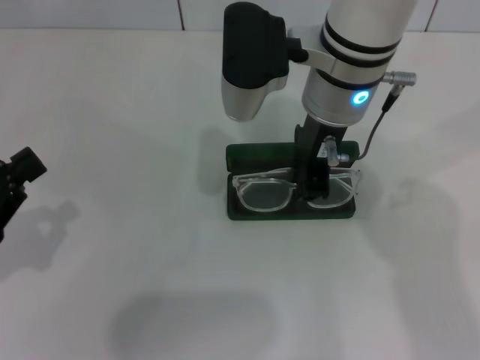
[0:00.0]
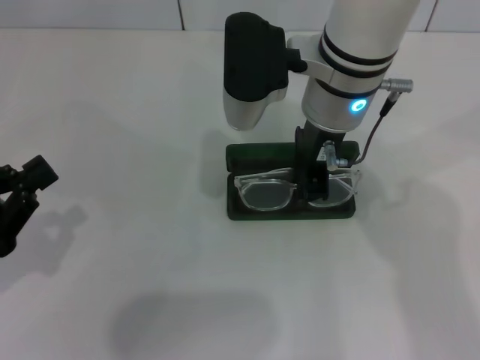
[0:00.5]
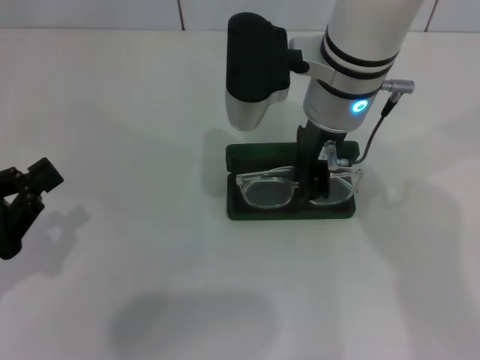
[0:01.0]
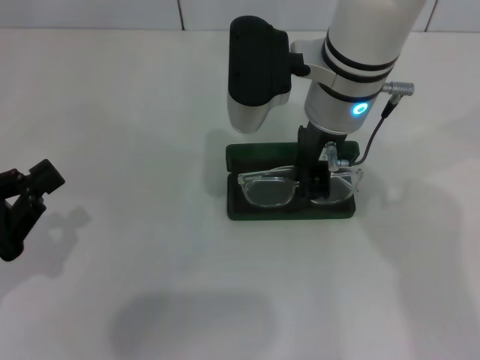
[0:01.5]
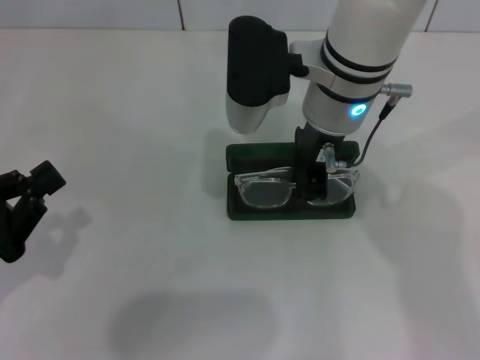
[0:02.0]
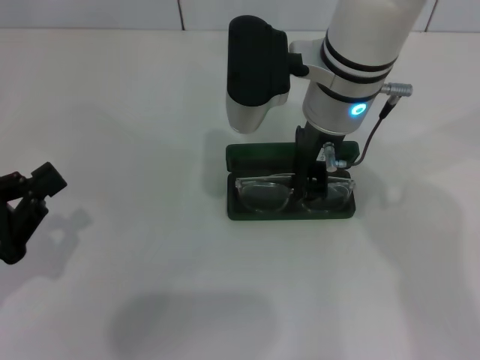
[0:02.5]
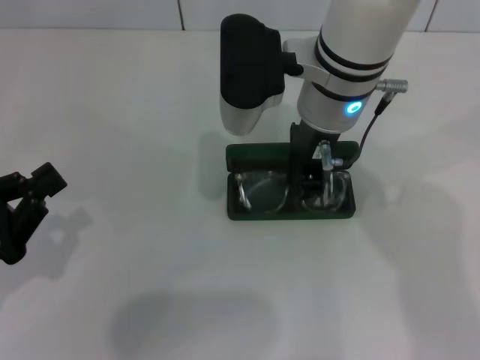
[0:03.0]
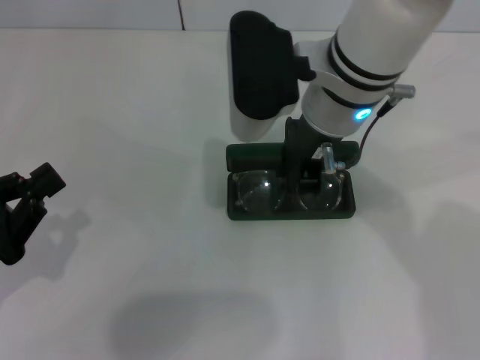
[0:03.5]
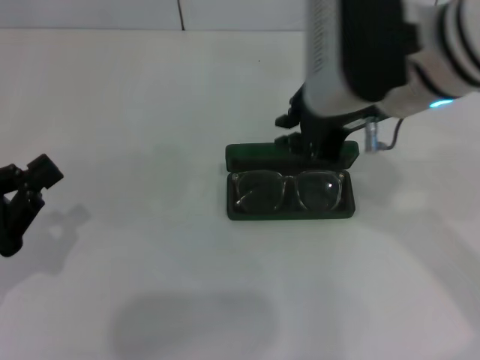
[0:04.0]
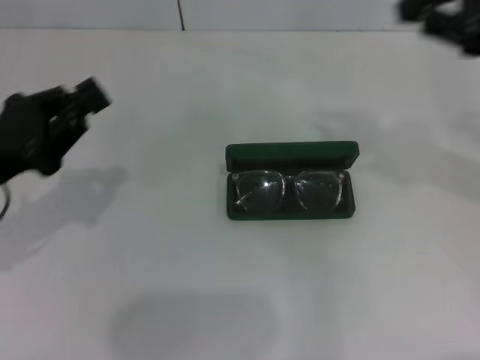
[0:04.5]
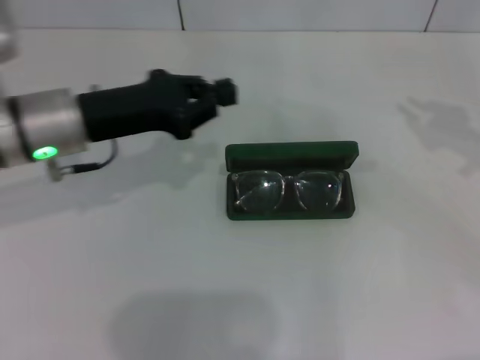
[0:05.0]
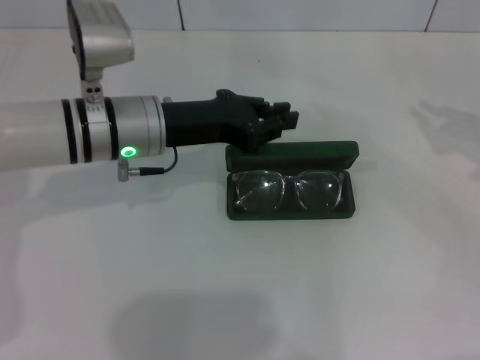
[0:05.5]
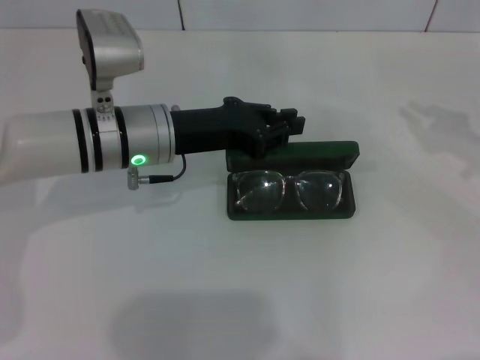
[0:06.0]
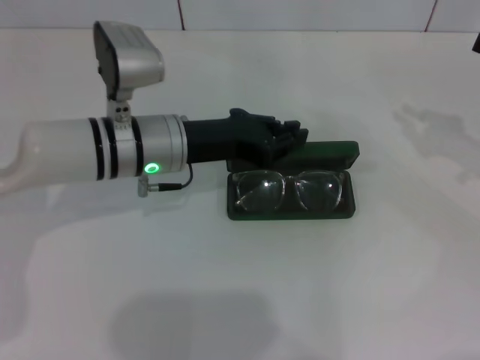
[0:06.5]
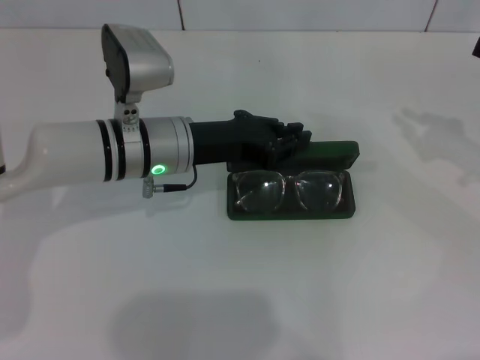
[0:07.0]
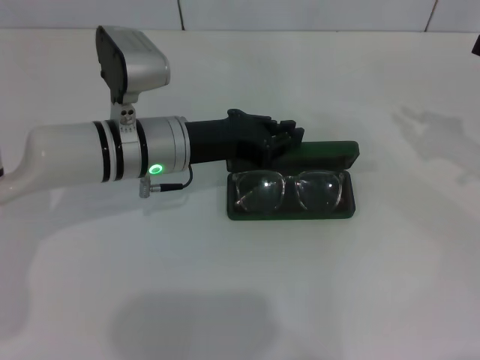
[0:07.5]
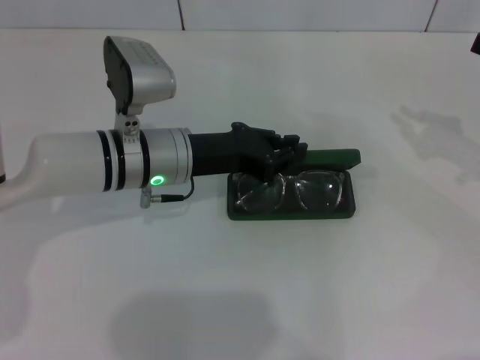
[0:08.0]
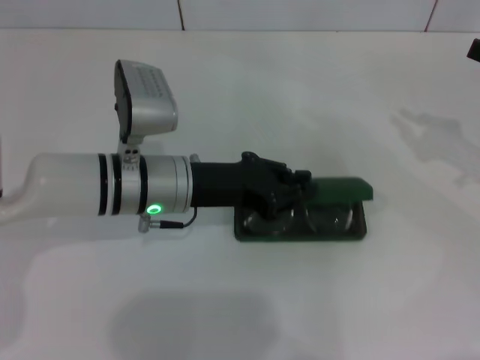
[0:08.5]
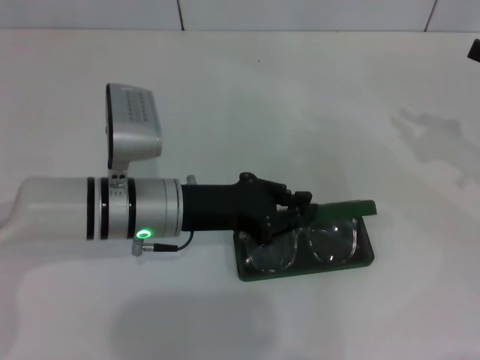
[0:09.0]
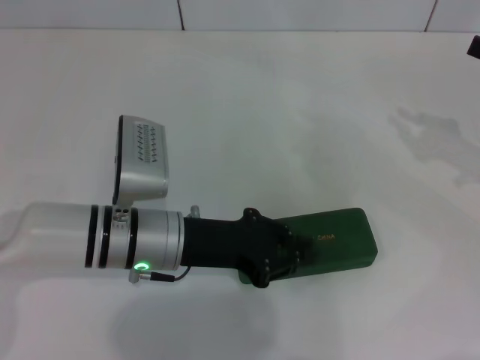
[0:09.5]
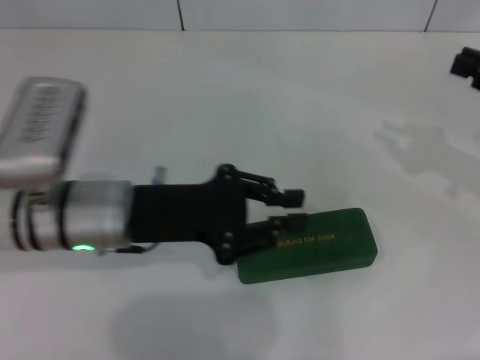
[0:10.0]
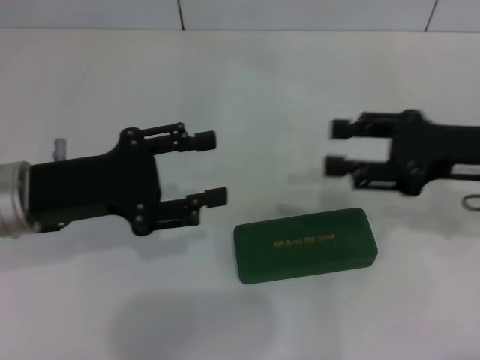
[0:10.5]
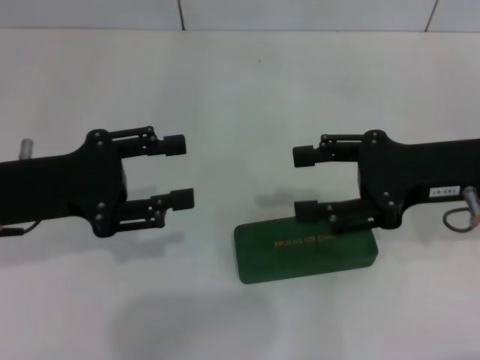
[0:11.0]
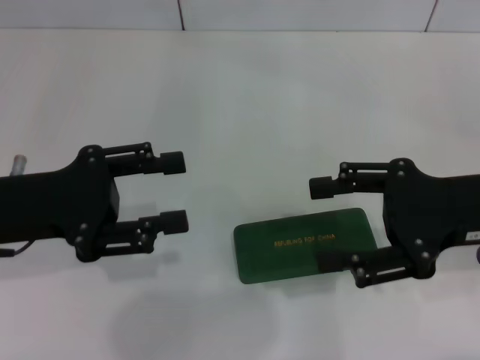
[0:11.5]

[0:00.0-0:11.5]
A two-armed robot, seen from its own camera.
Step, 0:00.0 to 0:03.0: Put the glasses into the case with your right hand.
Step, 0:03.5 to 0:09.0: Close the glasses case with your left hand.
0:00.0 to 0:02.0: There are only small adjustments of the grippers.
0:02.0 to 0:04.0: The right gripper is displaced to the right, backward and upward by some 10 cm.
0:04.0 to 0:06.0: The left gripper is displaced to the right and forward by about 25 cm. The right gripper goes approximately 25 cm to the right.
0:06.0 to 0:07.5: The grippers stay close to where they were, moving slightly.
0:07.5 to 0:09.5: The left gripper shifts roughly 5 cm backward.
0:09.5 to 0:11.5: The left gripper heads to the left and upward, covering approximately 15 cm, and opens up, while the right gripper shifts some 15 cm to the left and backward, and opens.
